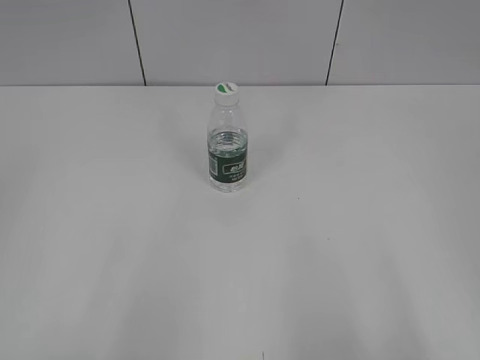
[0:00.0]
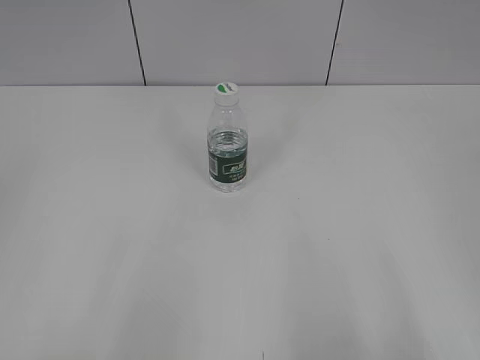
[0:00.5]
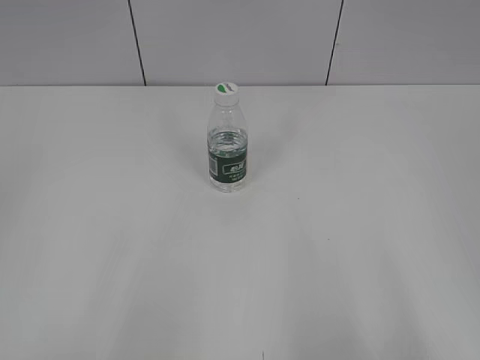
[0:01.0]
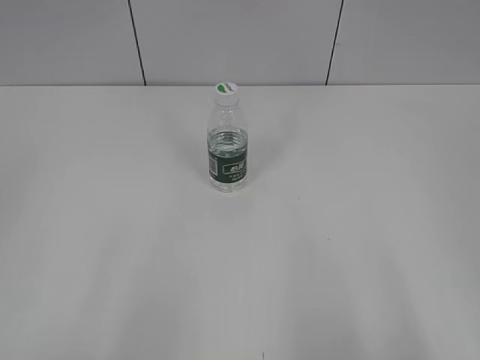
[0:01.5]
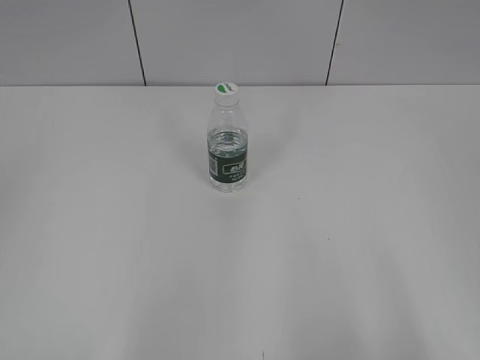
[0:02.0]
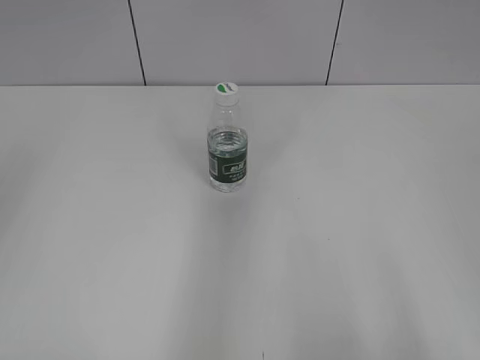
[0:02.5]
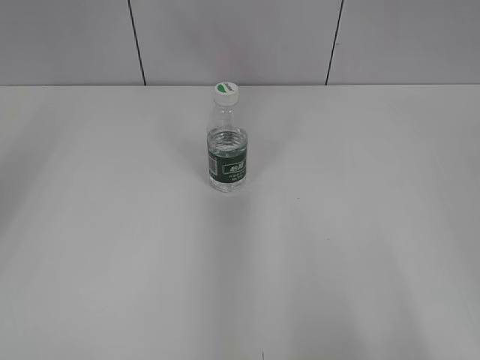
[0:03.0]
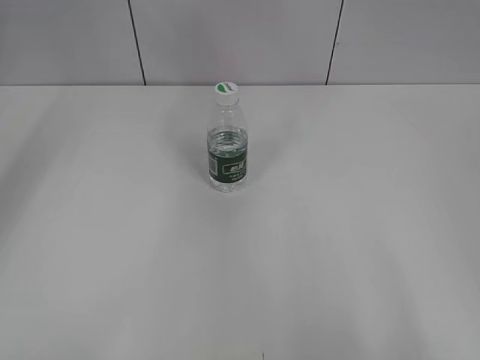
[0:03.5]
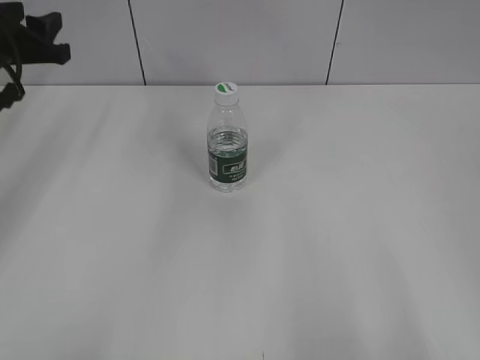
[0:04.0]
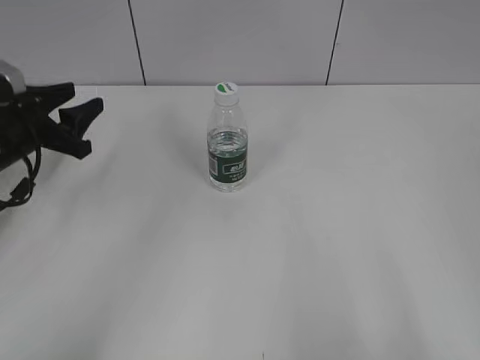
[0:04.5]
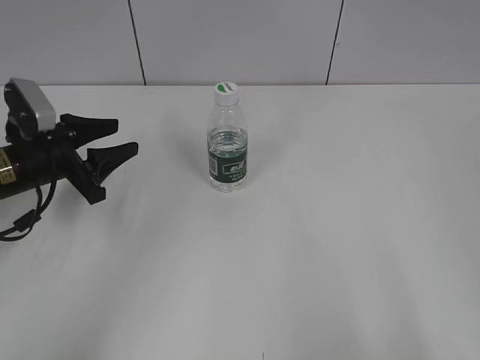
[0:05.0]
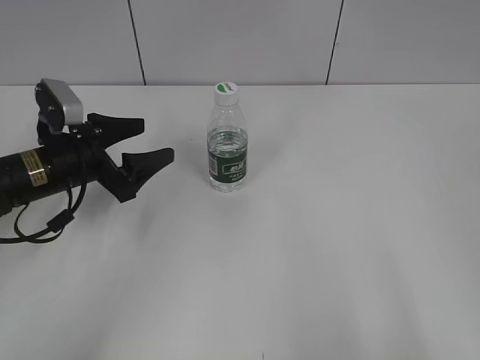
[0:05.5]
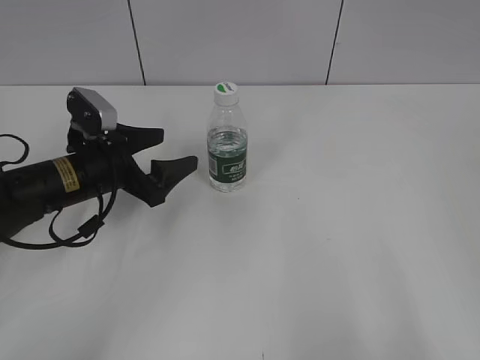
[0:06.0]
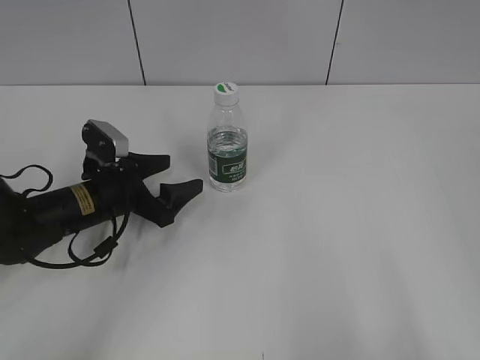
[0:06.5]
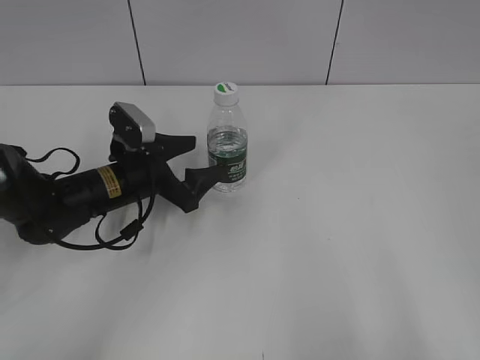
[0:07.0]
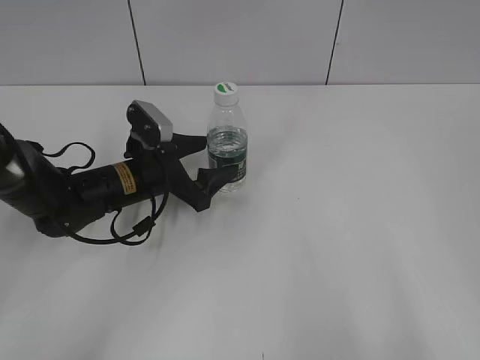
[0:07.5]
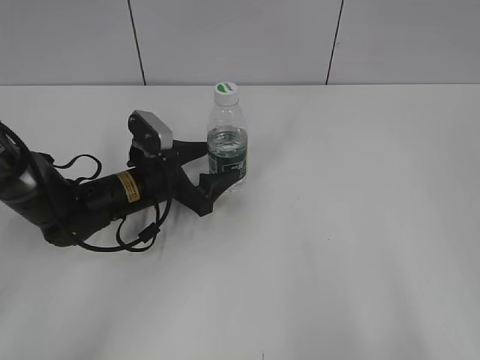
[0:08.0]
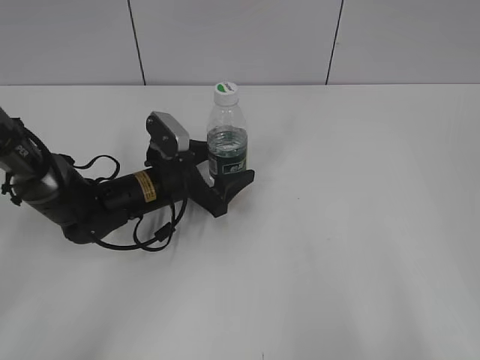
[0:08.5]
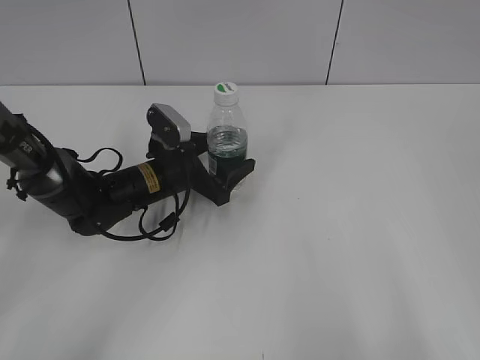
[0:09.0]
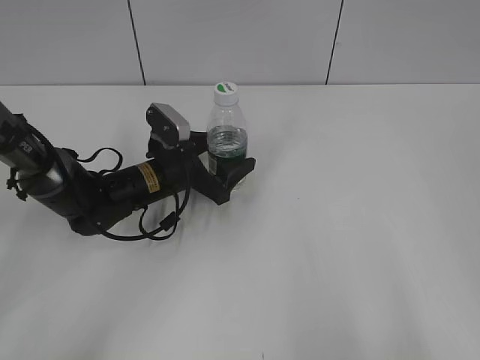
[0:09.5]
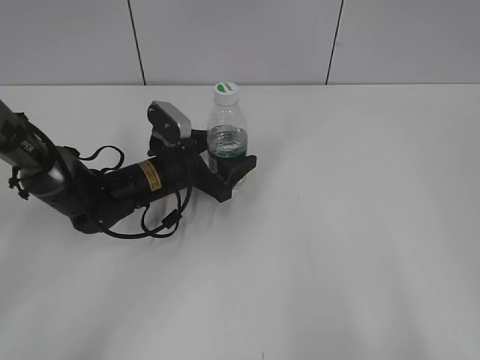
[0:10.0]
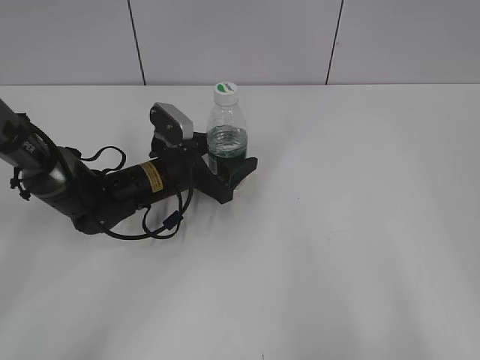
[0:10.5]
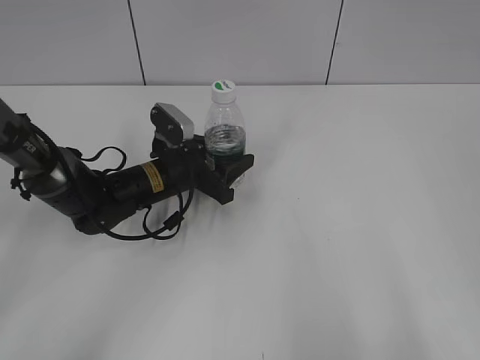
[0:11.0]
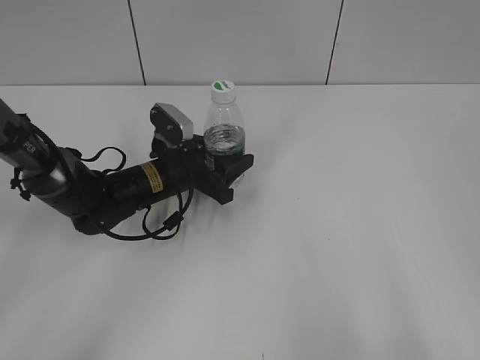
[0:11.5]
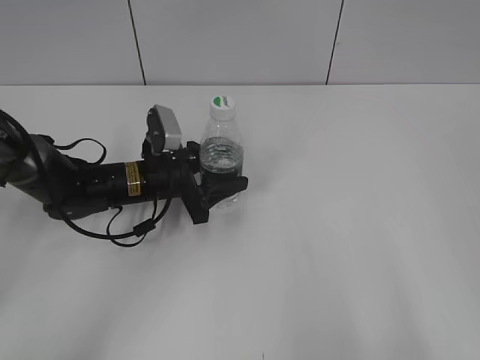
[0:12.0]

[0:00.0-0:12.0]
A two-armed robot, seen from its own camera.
Step, 0:00.0 to 0:11.0: Grasp the bottle and move it to the center of the table with the left gripper.
0:02.0 to 0:04.0: The left gripper goes some 40 cm forward.
0:04.0 to 0:06.0: The left gripper goes roughly 15 cm downward, to the right and backward, and opens up.
0:06.0 to 0:08.0: The left gripper is displaced to the right and downward by approximately 5 cm.
0:08.0 to 0:10.0: The grippers make only small movements.
0:10.0 to 0:12.0: The left gripper closes.

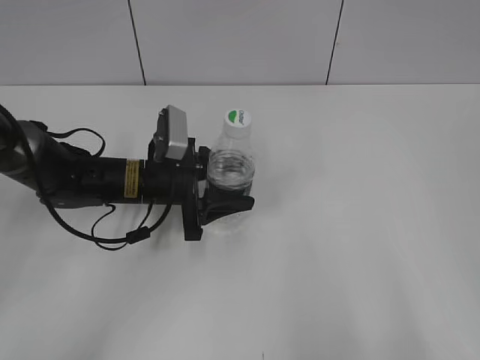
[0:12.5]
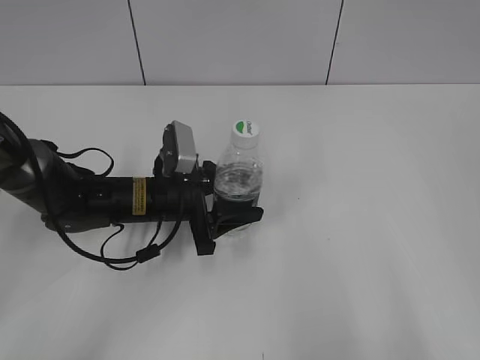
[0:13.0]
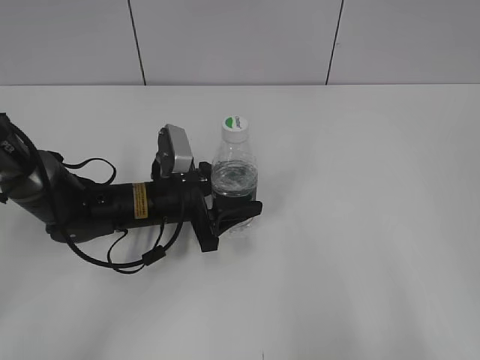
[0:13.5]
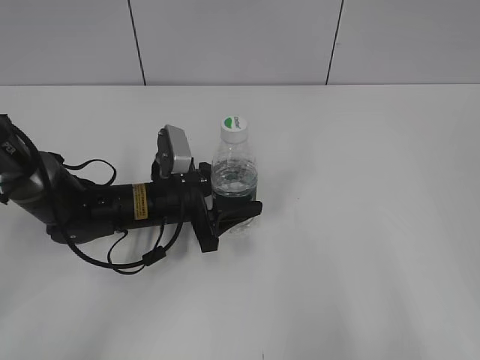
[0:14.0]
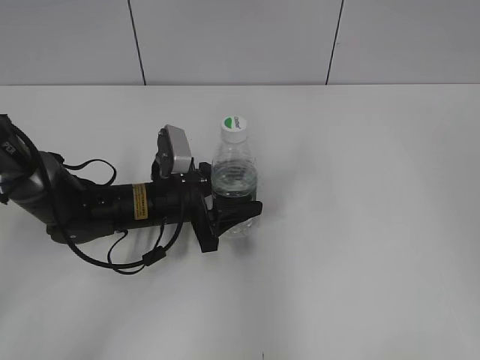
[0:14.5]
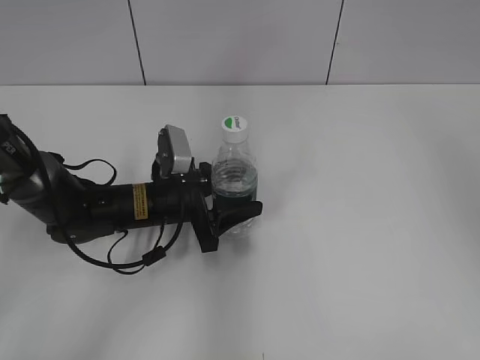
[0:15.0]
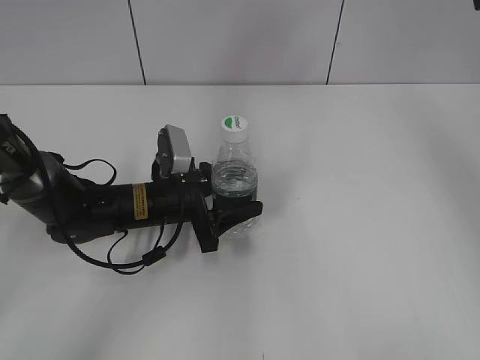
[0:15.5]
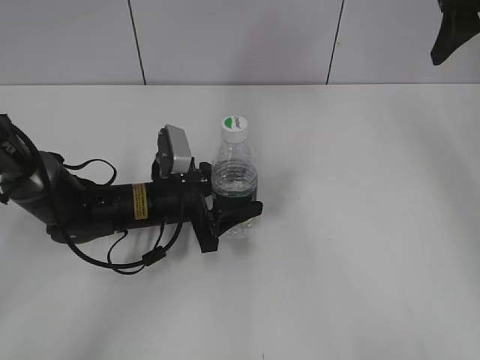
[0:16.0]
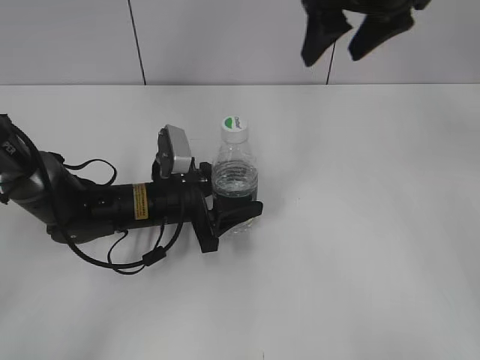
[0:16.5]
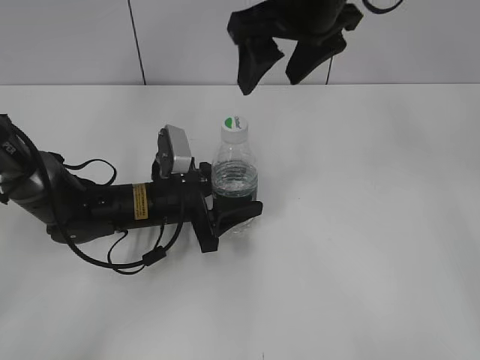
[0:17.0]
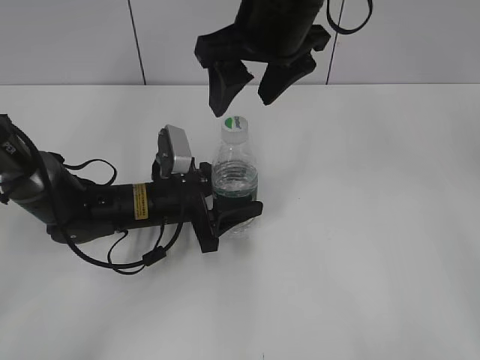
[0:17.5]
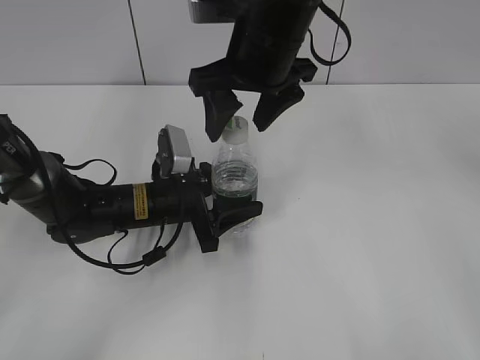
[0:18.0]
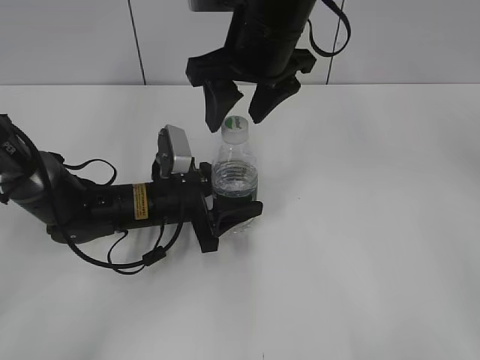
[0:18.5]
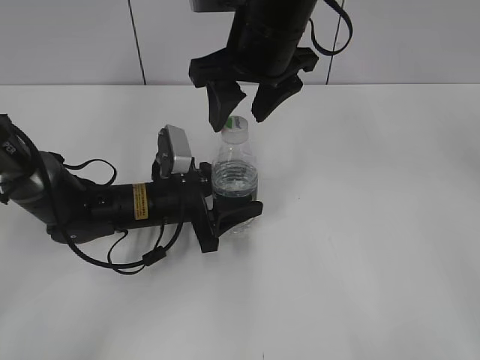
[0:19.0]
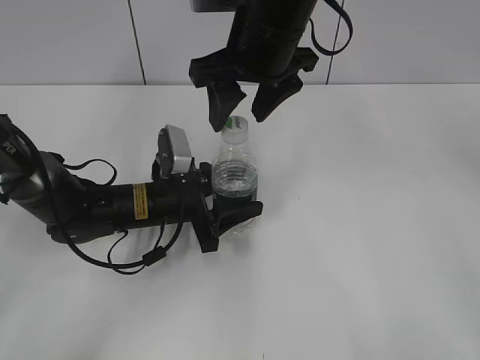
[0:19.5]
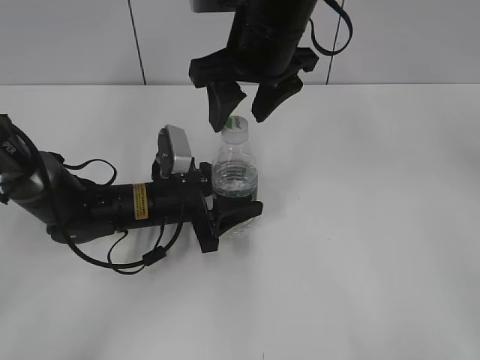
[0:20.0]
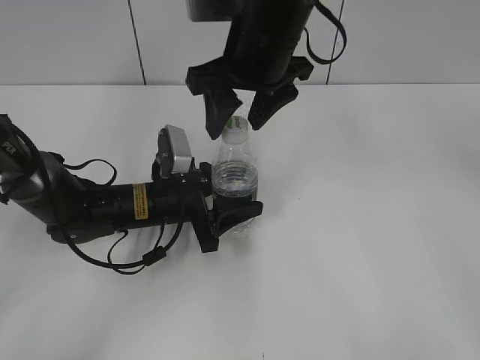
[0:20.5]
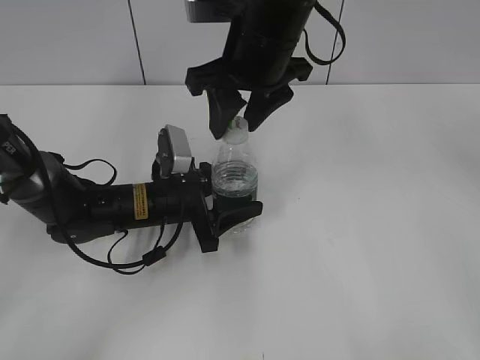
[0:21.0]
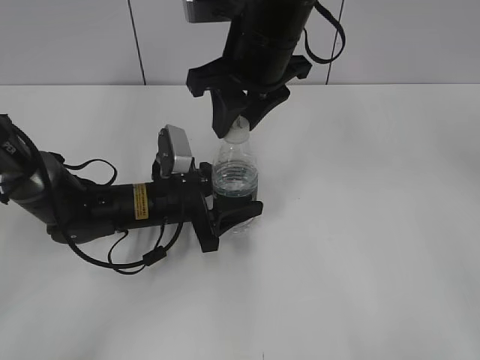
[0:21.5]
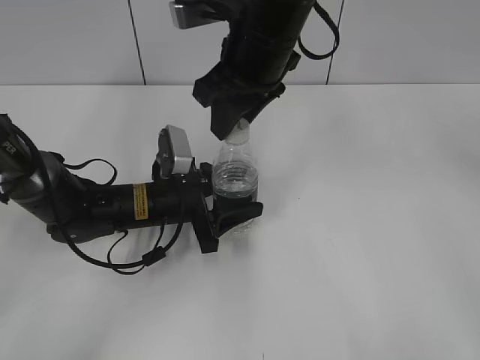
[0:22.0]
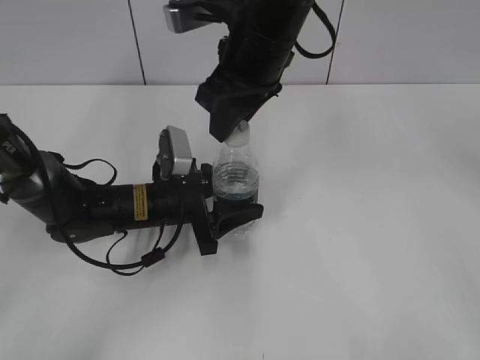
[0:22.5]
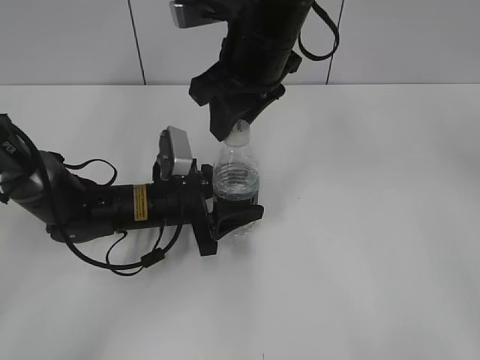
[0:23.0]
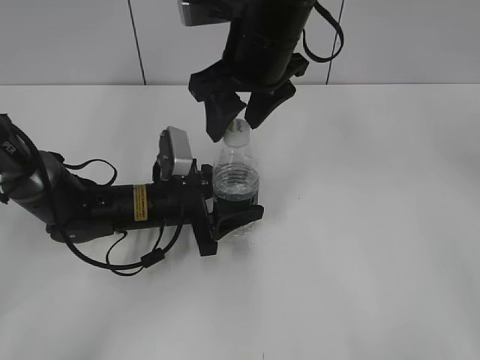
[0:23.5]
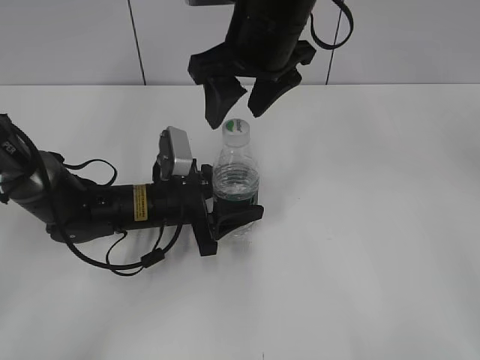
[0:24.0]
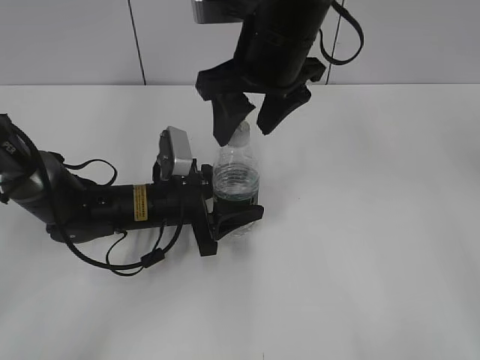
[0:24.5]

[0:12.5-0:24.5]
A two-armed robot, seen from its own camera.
Step, 0:12.5 to 0:15.0: Lift the bottle and move it to the center of the table with the left gripper.
0:12.5 to 0:14.5: The right gripper goes roughly 10 cm forward and upward.
0:14.5 to 0:16.5: The right gripper moves forward and to the left, about 35 cm.
0:16.5 to 0:18.5: The right gripper is displaced to the left and downward by some 15 cm.
0:18.5 to 0:20.5: Both grippers stay about where they are.
0:20.5 to 0:22.5: The right gripper closes up.
0:22.5 to 0:24.5: The right gripper opens up.

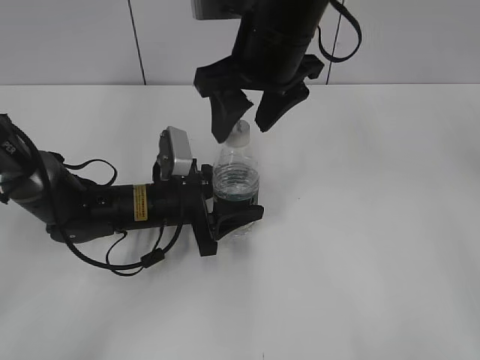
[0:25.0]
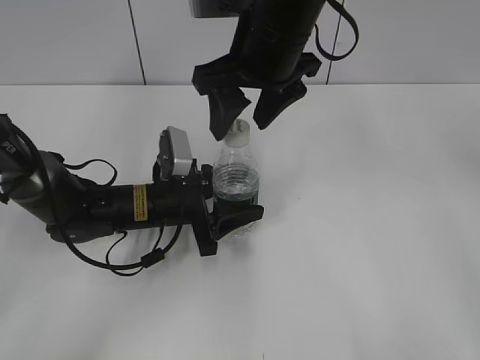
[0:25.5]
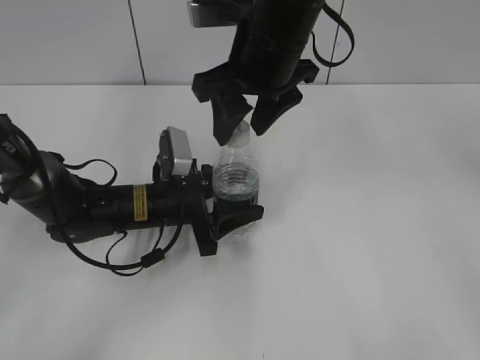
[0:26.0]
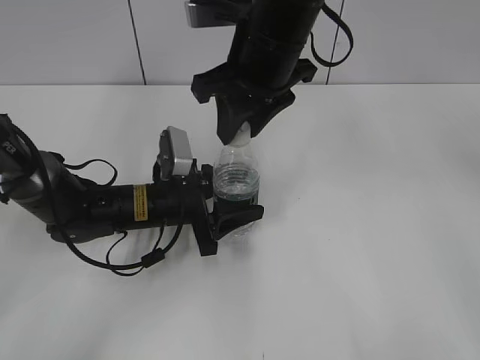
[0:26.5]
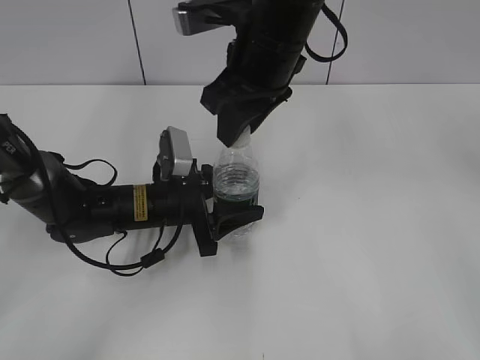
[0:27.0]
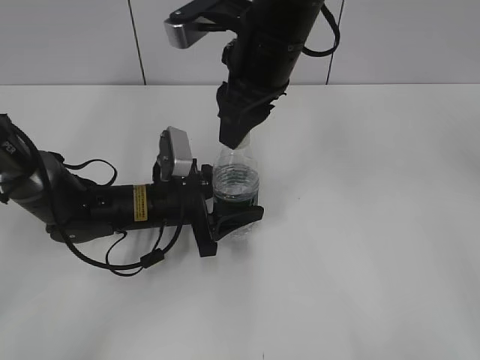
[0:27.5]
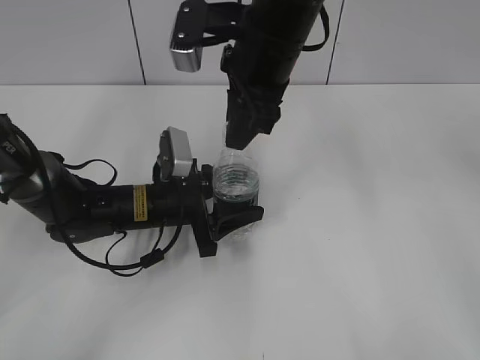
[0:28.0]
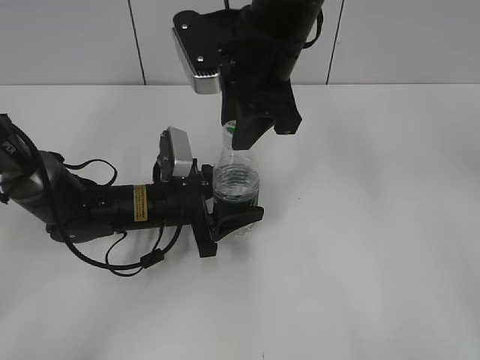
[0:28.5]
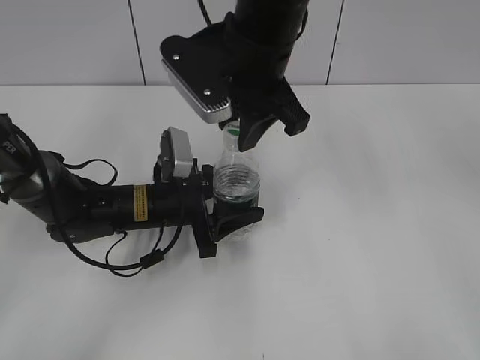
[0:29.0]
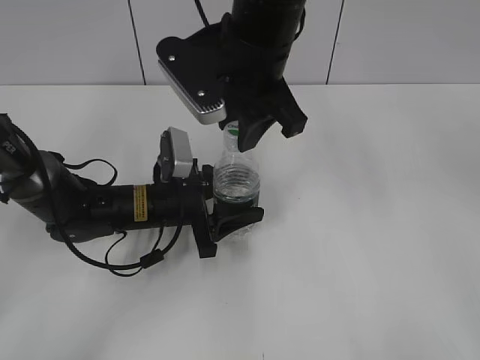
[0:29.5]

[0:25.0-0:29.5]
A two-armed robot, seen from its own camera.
0:25.0 to 0:27.0: The right gripper closes its fingers.
